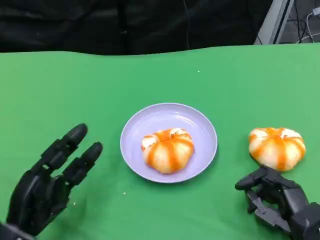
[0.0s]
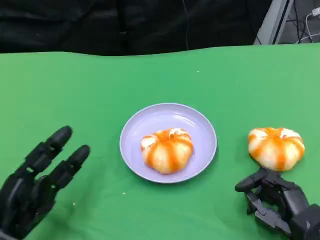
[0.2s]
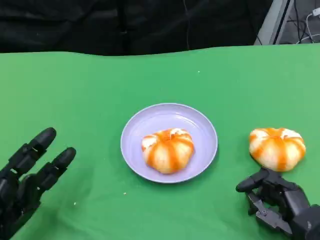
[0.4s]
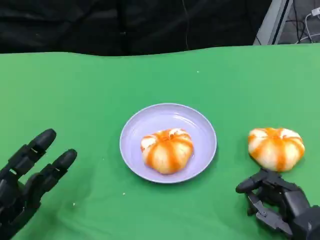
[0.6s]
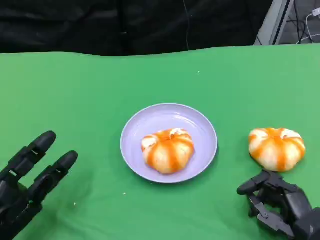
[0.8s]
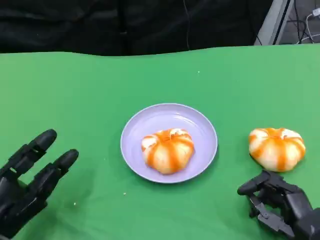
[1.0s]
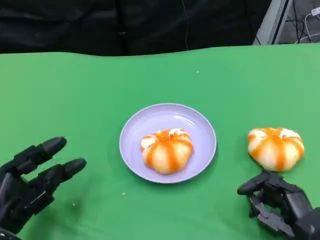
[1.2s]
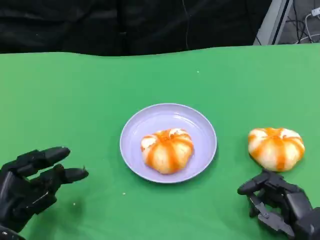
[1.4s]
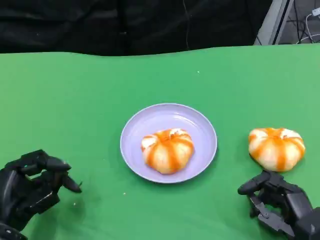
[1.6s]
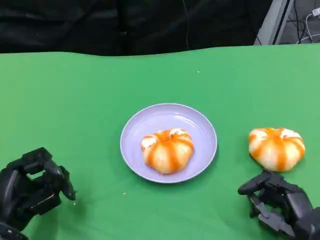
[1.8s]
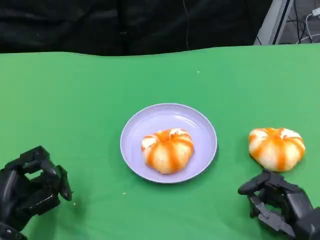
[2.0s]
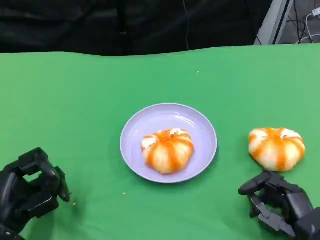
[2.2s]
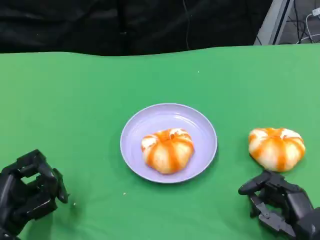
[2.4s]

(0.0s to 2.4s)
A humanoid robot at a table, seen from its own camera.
Task of the whole recording: Grasp the bread from the table and place it into the plate.
0.0s - 2.4s: The hands move only a little.

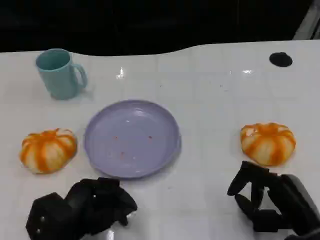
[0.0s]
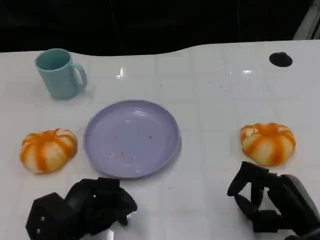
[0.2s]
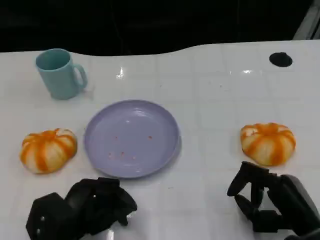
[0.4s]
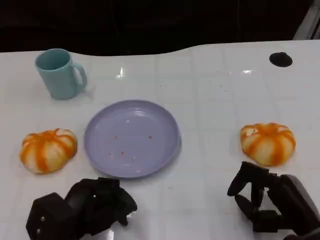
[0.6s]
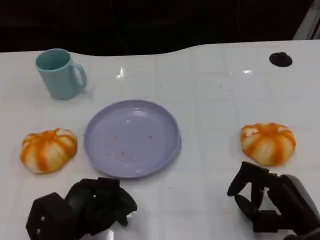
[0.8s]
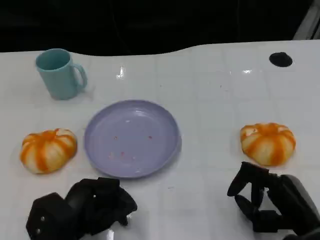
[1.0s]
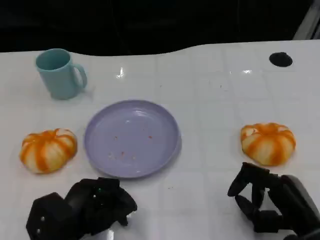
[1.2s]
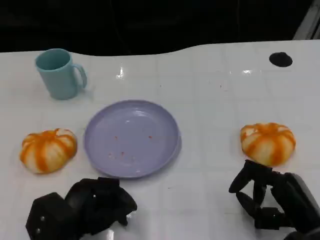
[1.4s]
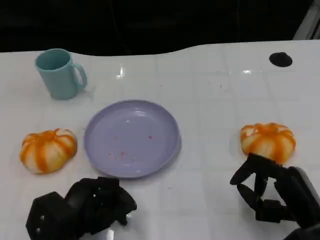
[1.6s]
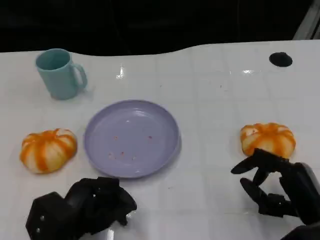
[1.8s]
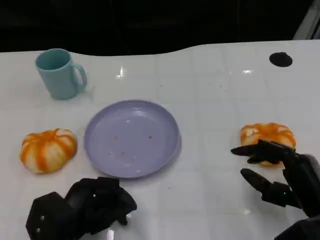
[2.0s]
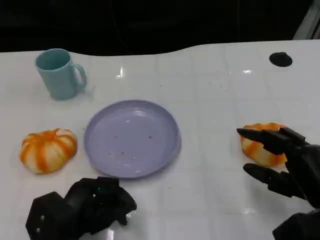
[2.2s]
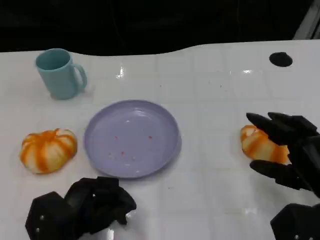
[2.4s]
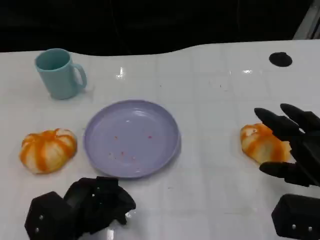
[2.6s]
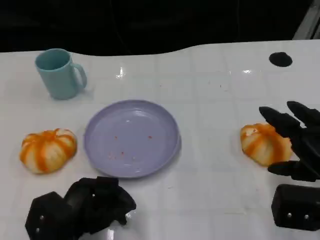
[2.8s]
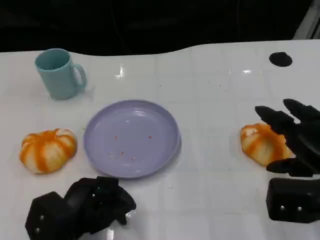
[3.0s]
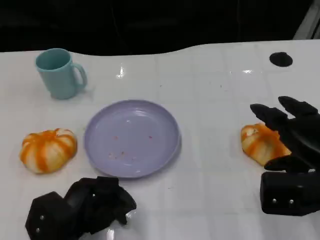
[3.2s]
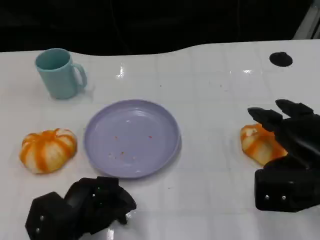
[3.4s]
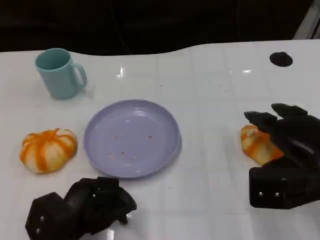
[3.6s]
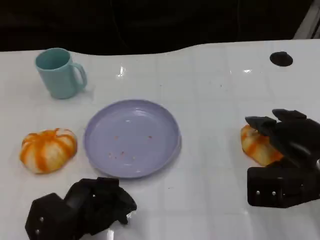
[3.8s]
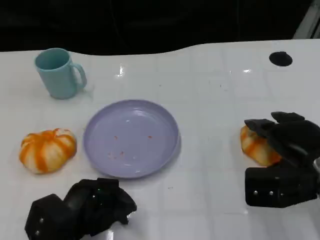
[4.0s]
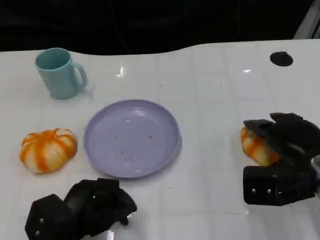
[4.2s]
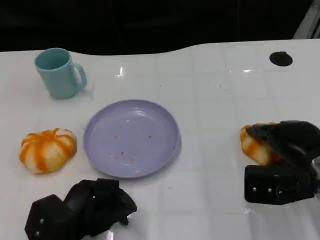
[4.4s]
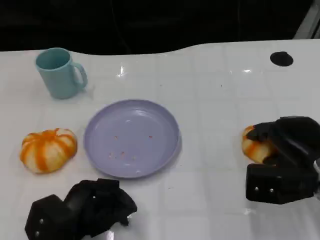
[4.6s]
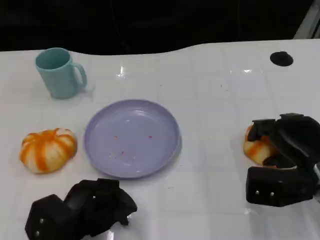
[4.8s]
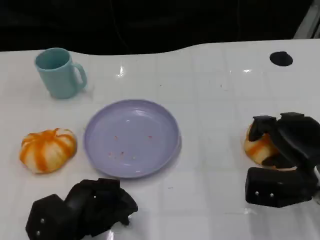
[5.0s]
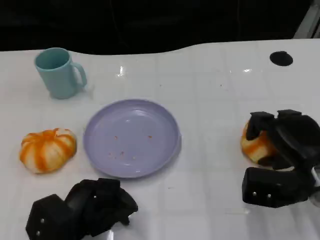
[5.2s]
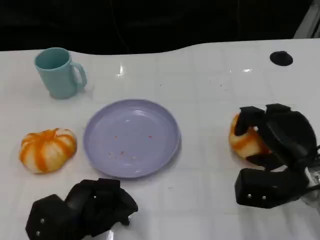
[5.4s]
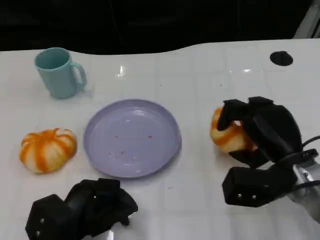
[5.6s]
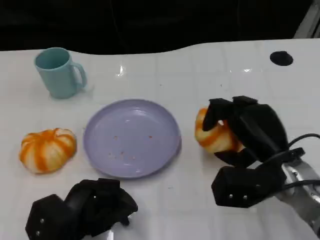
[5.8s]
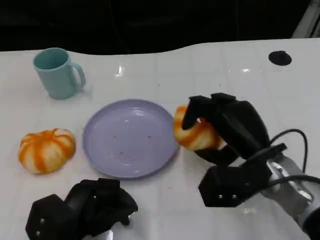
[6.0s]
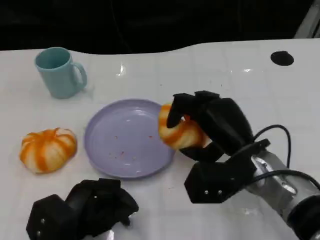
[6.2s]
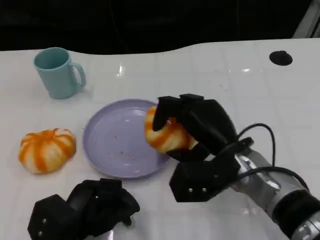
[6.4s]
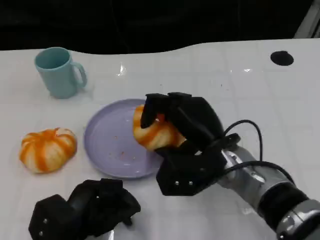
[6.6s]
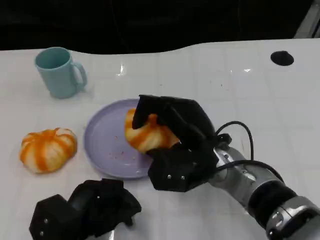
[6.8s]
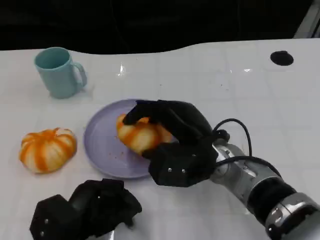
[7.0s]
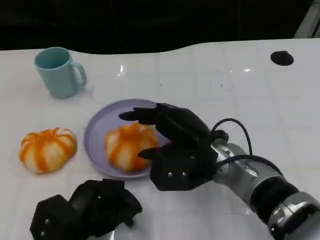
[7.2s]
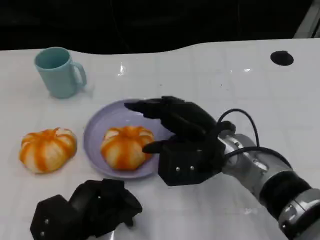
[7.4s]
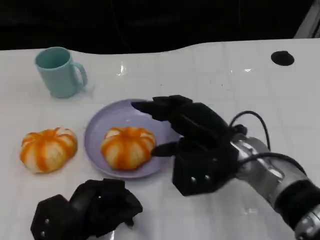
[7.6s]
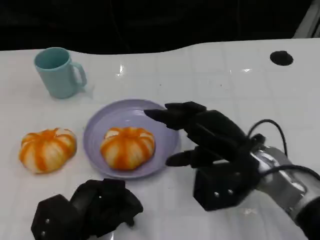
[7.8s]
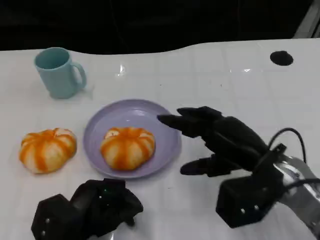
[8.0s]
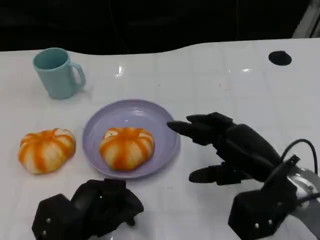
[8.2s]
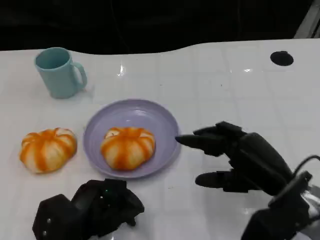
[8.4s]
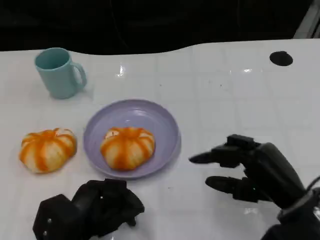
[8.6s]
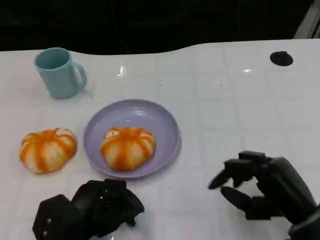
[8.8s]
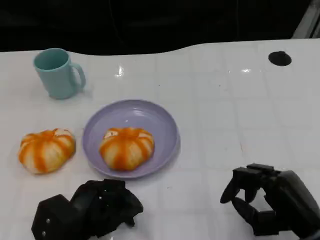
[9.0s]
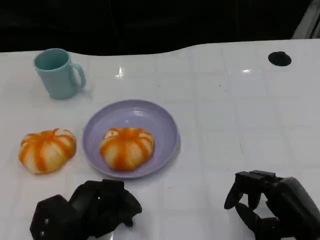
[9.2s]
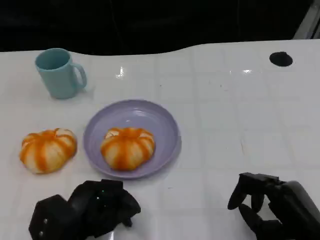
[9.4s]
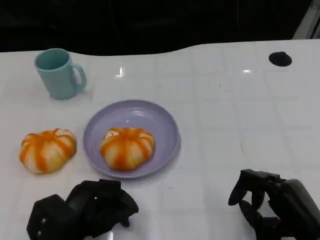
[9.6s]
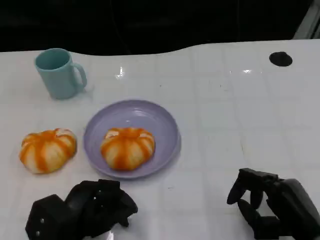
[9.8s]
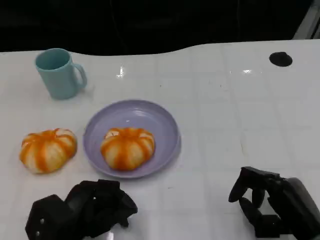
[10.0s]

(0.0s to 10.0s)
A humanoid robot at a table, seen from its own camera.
Task of the whole recording: Grasp the bread from the table and place it into the plate.
0.0s - 1.4s: Both hands stay put.
1.4s - 2.8s: The right hand travels upward by about 5 cm.
2.8s - 4.2s: The right hand moves some 5 cm.
4.2s - 5.8s: The right hand goes approximately 5 cm to the left.
5.8s - 7.2s: The right hand goes approximately 10 cm to the left.
7.2s - 8.6s: The right hand moves to the right and backward, roughly 15 cm.
8.6s - 10.0s: The right hand shifts by approximately 5 cm.

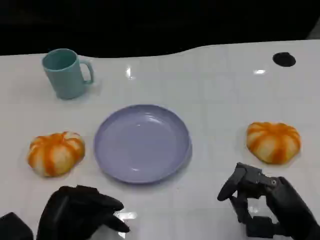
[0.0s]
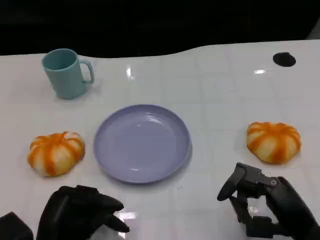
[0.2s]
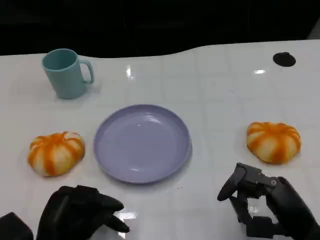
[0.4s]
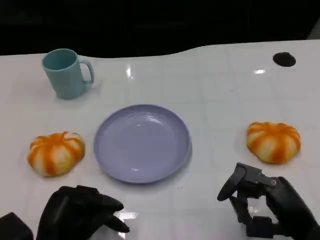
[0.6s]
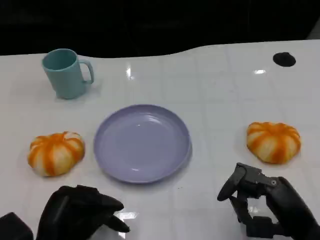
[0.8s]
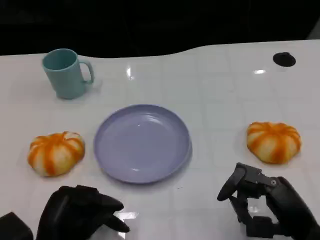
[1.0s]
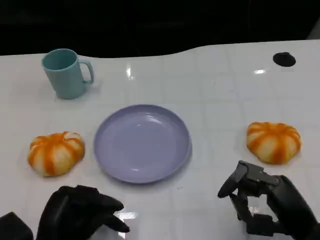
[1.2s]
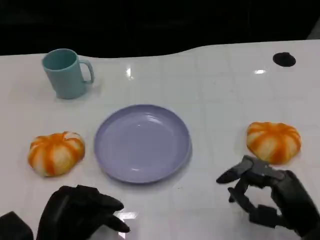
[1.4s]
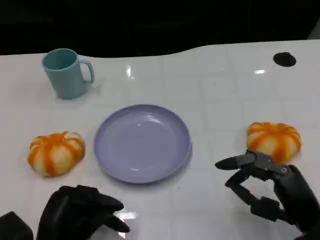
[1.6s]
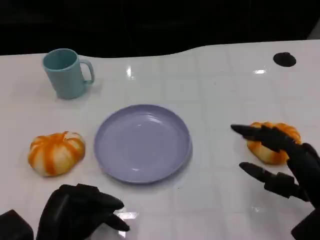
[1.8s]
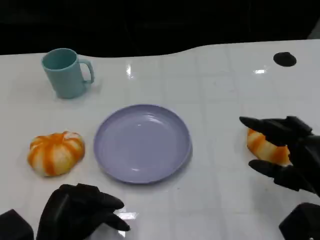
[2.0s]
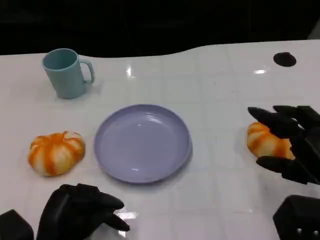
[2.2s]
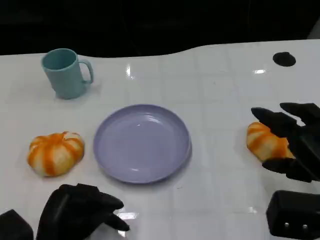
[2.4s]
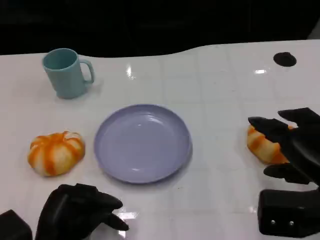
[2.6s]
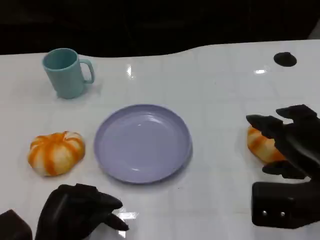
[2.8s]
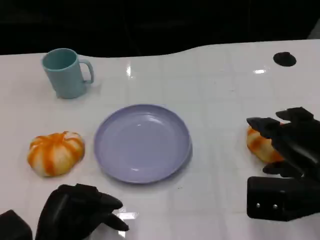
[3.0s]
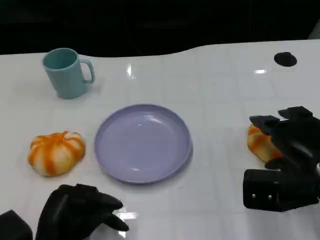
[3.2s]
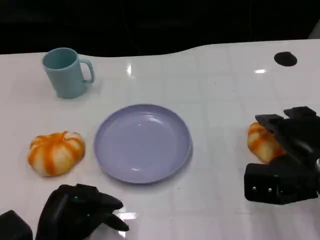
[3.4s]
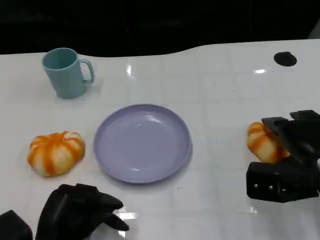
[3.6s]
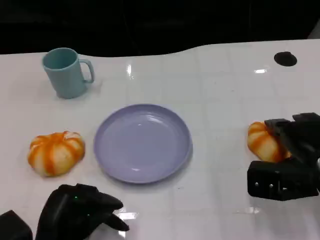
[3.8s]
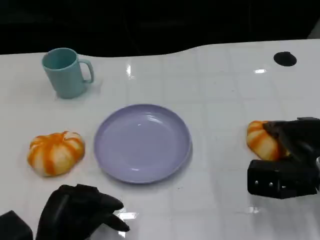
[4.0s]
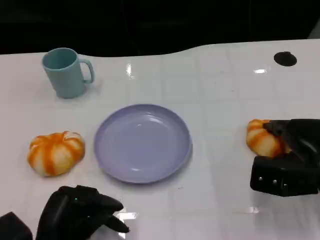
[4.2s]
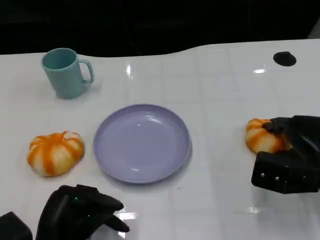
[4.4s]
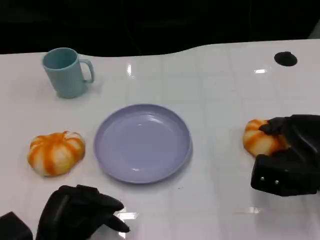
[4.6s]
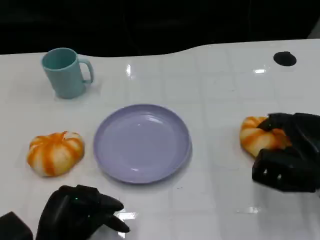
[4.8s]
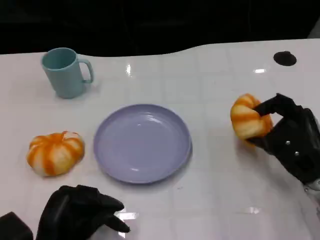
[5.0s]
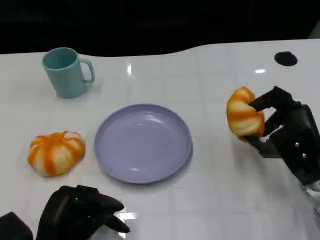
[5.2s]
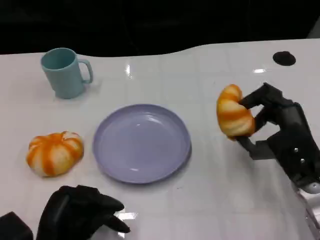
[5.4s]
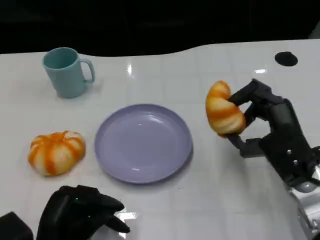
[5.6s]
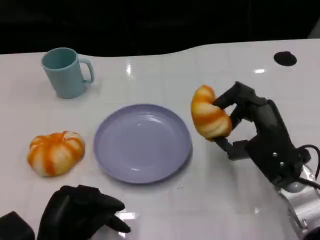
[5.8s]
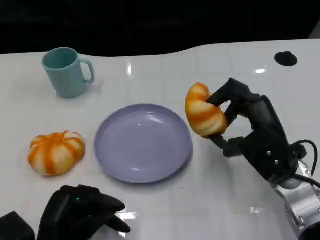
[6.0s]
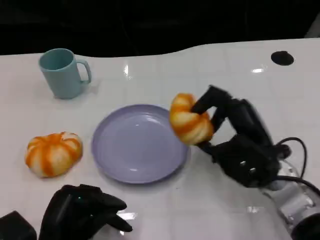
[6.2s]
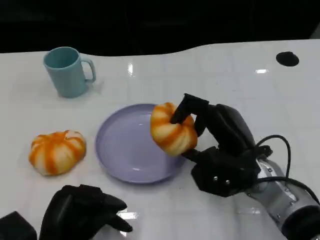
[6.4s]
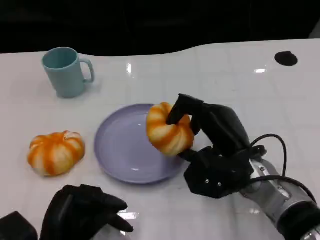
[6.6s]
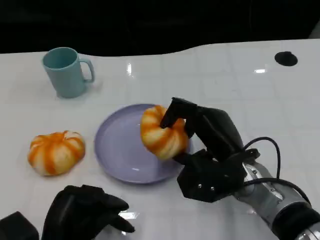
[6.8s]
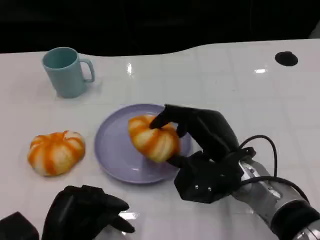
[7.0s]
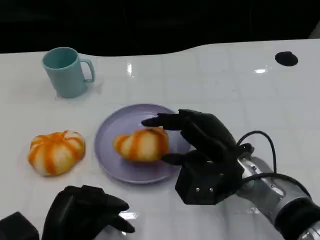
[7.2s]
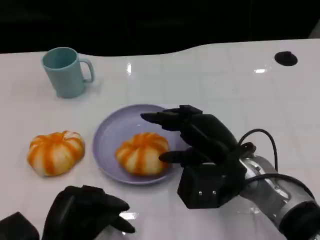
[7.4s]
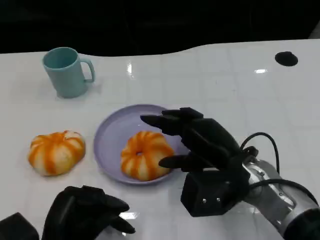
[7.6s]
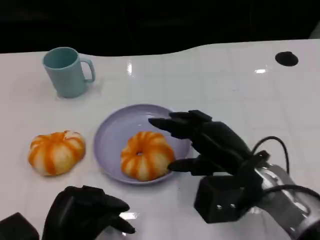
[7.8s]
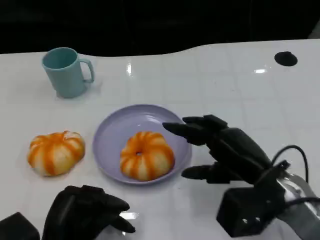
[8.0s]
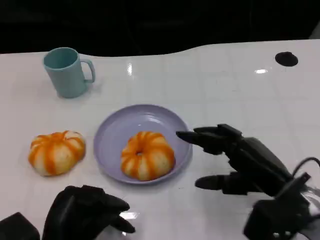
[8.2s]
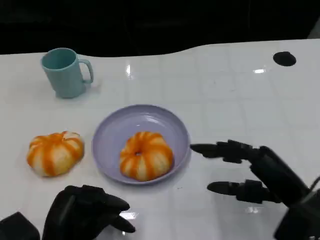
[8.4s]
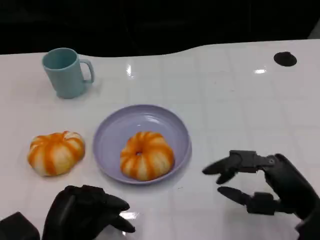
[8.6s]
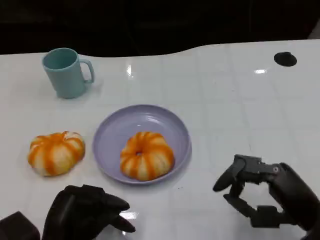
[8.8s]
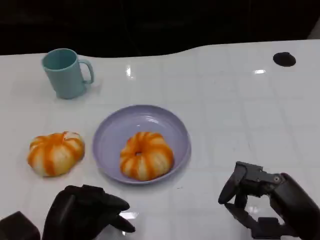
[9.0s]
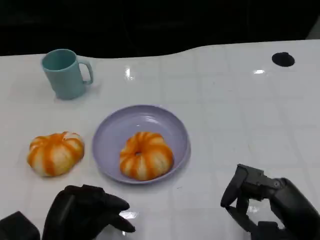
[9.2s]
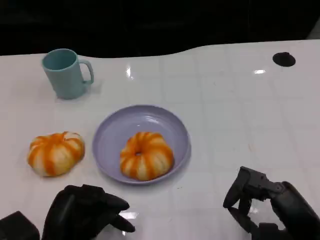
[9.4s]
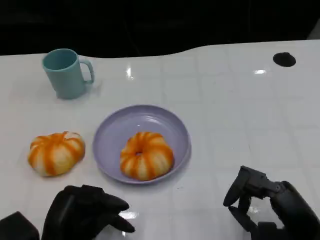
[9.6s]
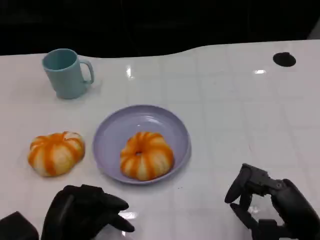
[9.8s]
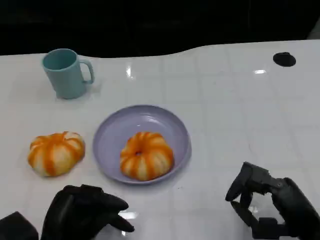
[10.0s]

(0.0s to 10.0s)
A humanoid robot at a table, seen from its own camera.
Task of the whole recording: Grasp the bread from the table and place it into the plate.
0.0s - 1.4s: The hands make only small movements.
1.4s - 2.8s: The right hand moves upward, about 5 cm.
2.8s - 4.2s: The right hand heads downward and forward, covering roughly 10 cm.
4.2s - 5.8s: The right hand moves to the left, roughly 5 cm.
5.8s - 7.2s: The right hand travels to the left by some 5 cm.
7.2s - 8.6s: The right hand is displaced to the right and backward by roughly 15 cm.
8.6s - 10.0s: The hands stay close to where they were, moving slightly.
